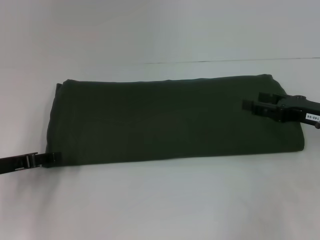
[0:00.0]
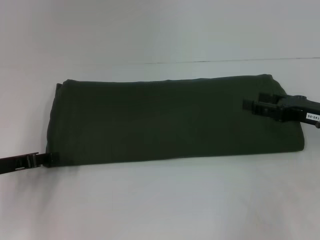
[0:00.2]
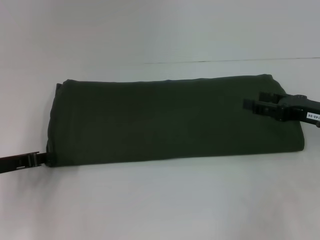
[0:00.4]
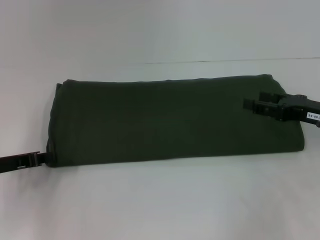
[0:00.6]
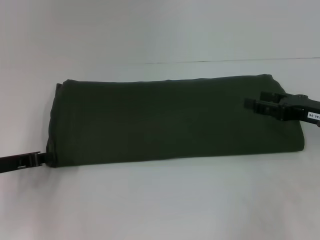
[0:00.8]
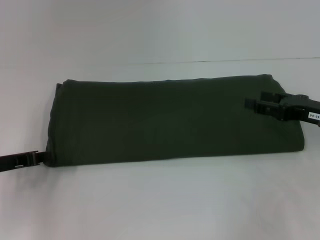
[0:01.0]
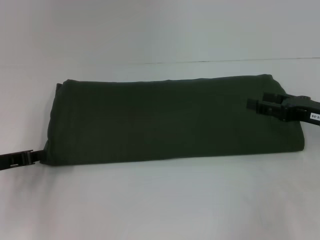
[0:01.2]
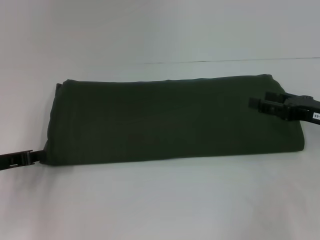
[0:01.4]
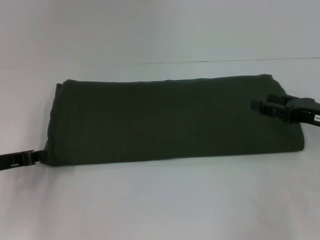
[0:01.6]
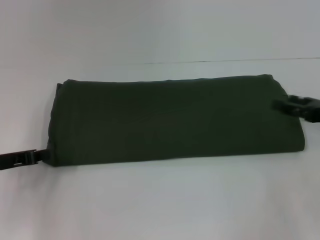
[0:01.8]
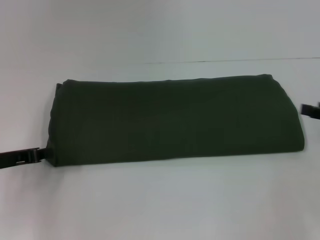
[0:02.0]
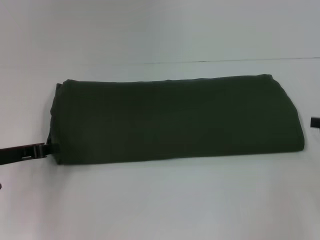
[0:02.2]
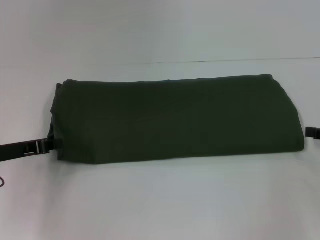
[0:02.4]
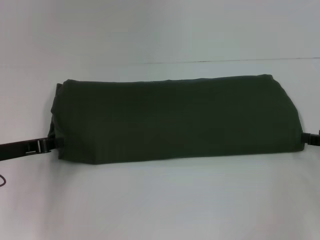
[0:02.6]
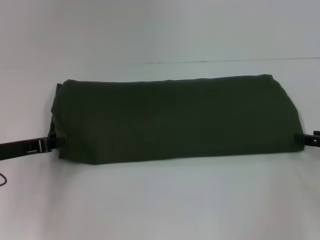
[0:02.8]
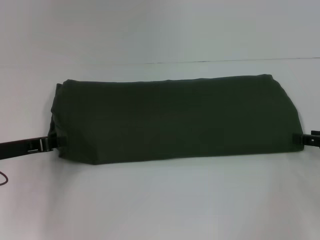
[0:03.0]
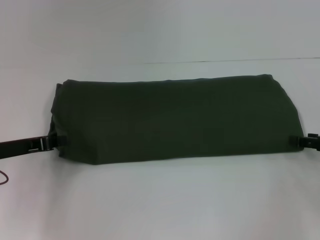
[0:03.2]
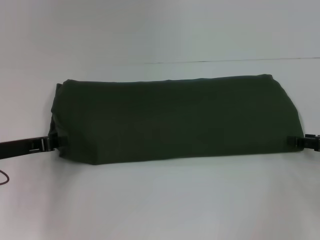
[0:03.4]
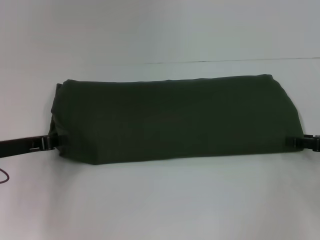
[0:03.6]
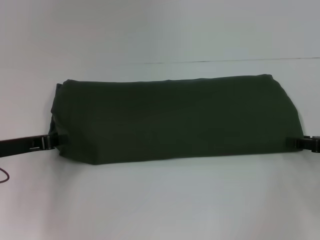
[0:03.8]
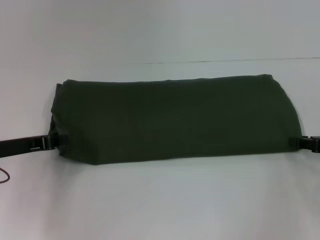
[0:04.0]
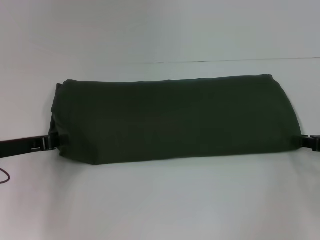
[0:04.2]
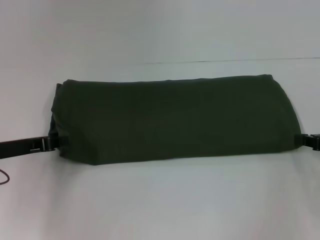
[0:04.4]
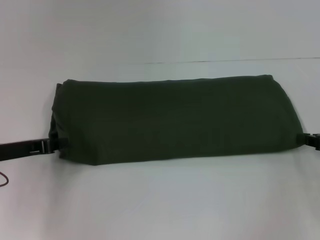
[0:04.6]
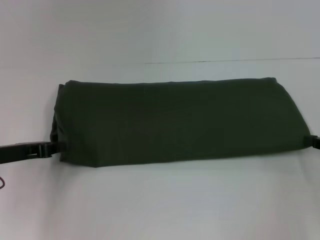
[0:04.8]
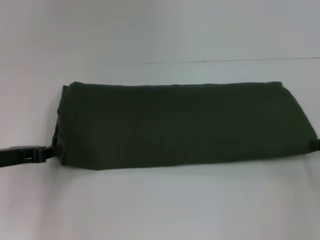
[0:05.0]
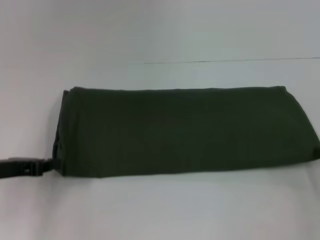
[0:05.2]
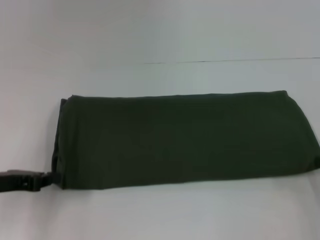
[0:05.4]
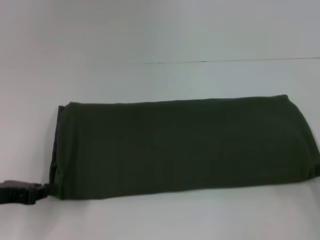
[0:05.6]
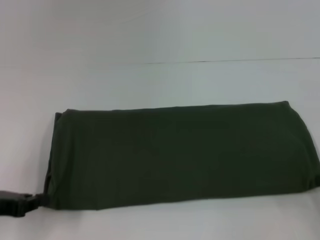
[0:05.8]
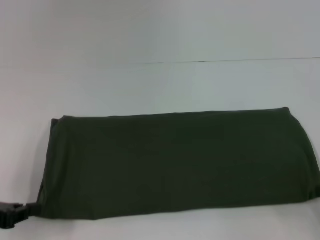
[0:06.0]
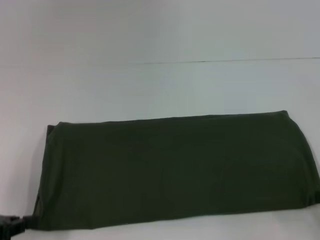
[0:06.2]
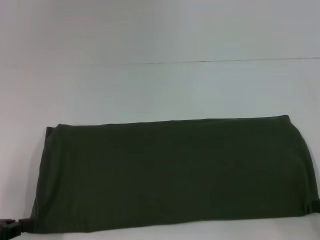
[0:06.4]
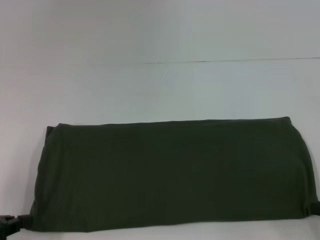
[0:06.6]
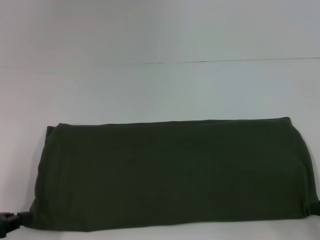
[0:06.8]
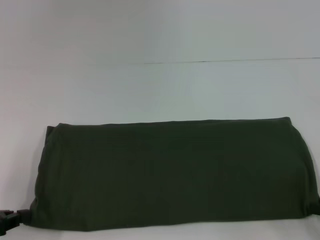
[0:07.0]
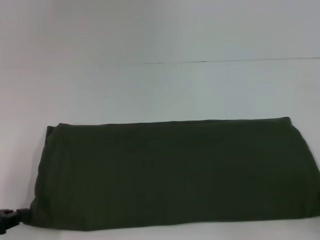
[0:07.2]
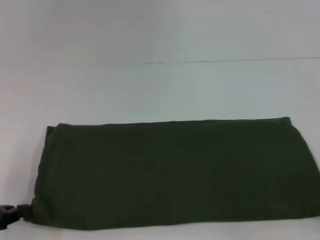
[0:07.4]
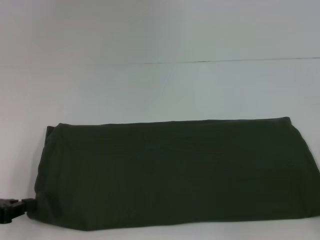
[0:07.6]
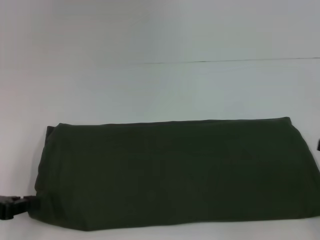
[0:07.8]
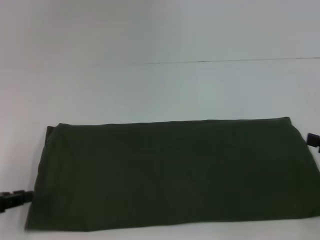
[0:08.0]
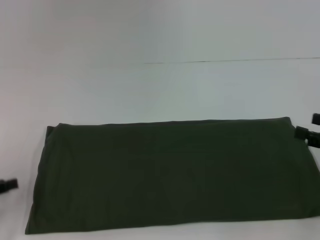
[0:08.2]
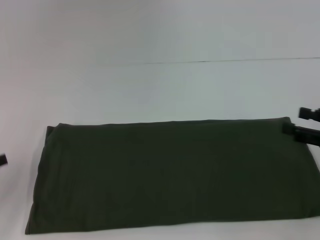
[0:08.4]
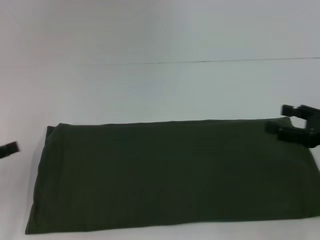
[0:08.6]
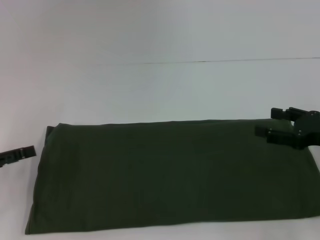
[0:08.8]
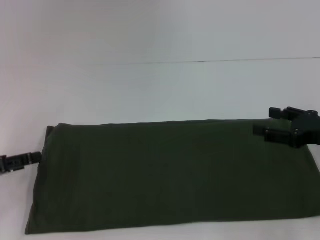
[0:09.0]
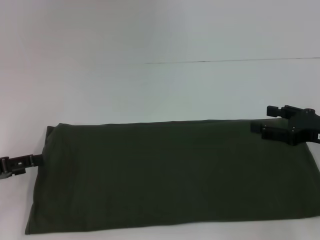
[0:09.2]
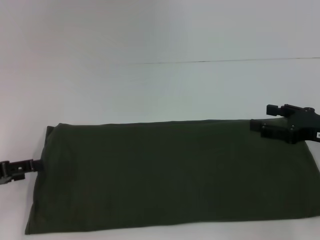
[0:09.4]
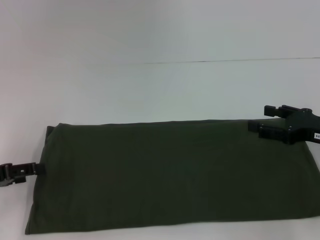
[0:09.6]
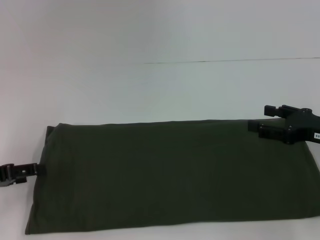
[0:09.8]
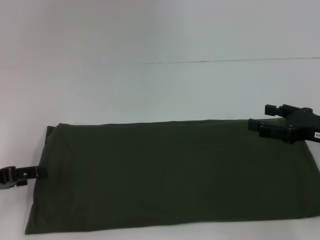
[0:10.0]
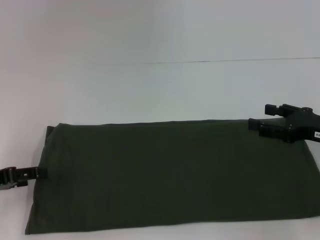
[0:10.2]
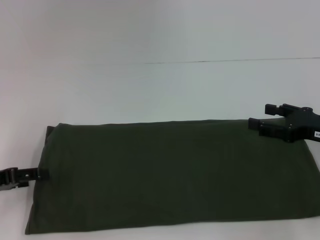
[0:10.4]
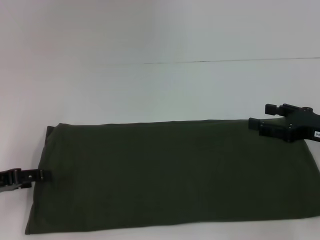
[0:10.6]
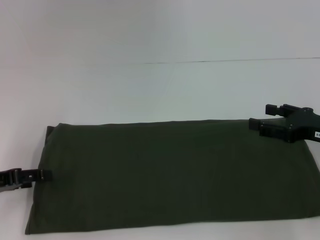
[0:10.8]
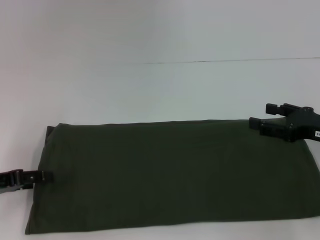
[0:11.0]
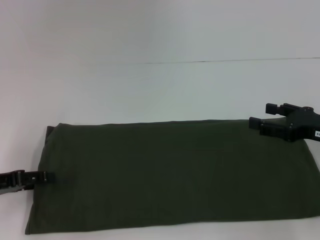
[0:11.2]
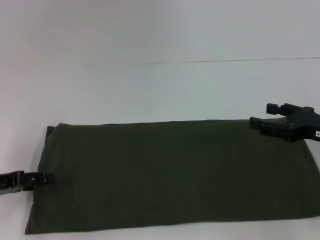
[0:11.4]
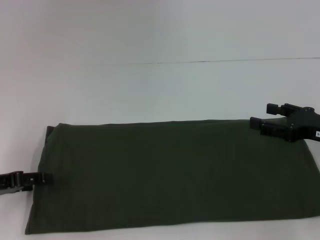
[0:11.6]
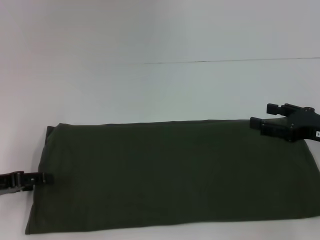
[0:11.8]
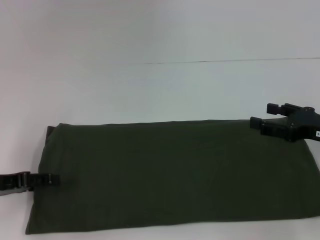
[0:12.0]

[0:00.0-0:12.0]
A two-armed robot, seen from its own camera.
Step, 0:00.0 to 0:06.8: Pull the clothes with your left hand.
Step, 0:00.0 to 0:06.8: Pull the clothes with your right hand.
0:00.0 to 0:01.6: The left gripper closes its fingers.
0:01.6 to 0:03.0: The right gripper travels to the right by roughly 5 cm.
0:04.4 to 0:06.0: The grippers both shift backward by about 10 cm.
0:06.0 to 0:07.6: The right gripper opens up.
0:07.6 to 0:09.0: The right gripper is displaced forward and to the left by approximately 10 cm. The left gripper opens.
0:09.0 to 0:12.0: There are only small adjustments of the grippers.

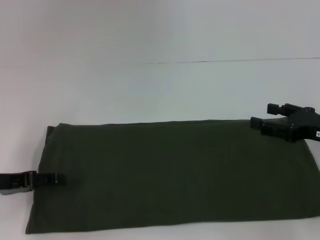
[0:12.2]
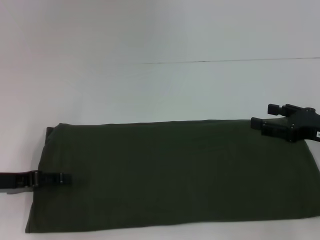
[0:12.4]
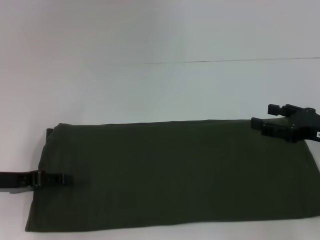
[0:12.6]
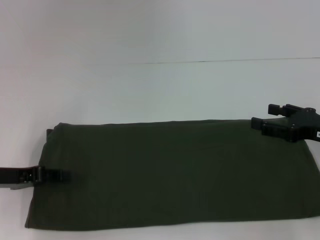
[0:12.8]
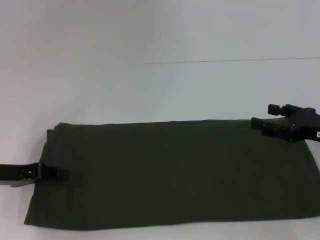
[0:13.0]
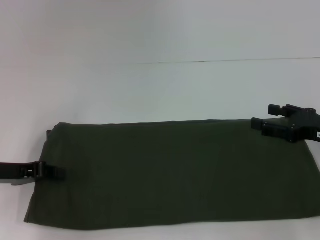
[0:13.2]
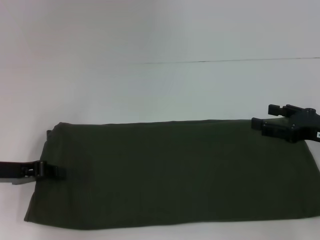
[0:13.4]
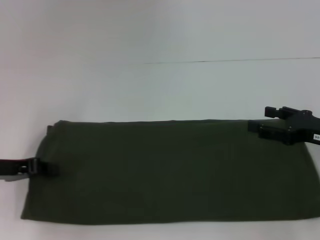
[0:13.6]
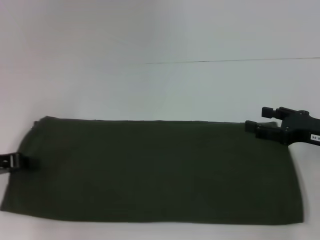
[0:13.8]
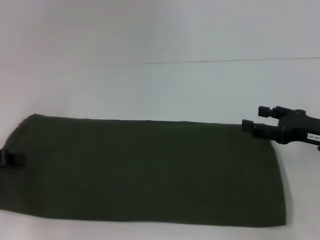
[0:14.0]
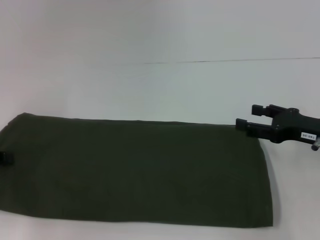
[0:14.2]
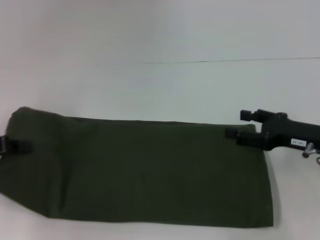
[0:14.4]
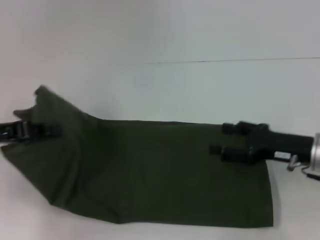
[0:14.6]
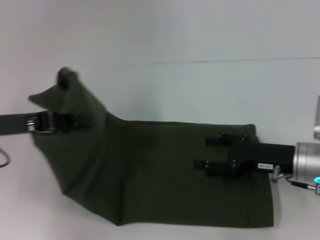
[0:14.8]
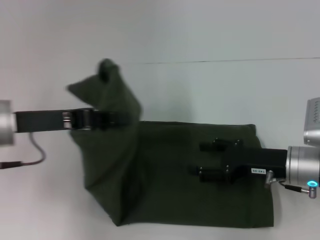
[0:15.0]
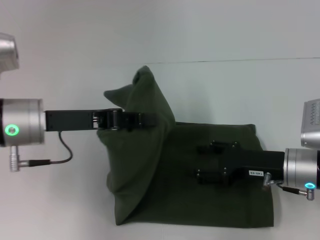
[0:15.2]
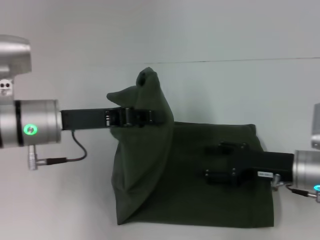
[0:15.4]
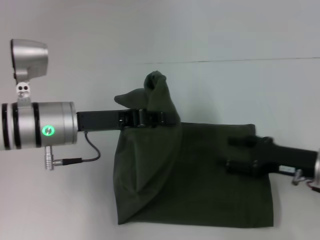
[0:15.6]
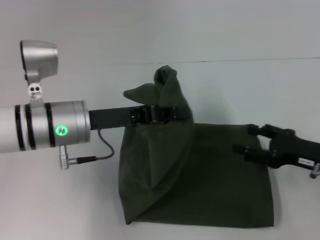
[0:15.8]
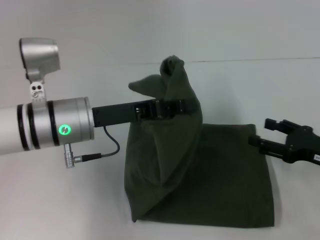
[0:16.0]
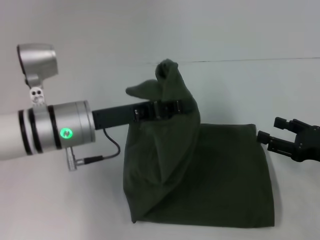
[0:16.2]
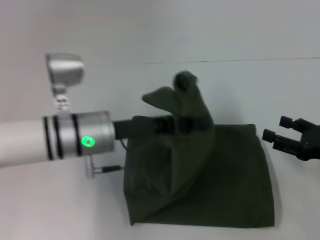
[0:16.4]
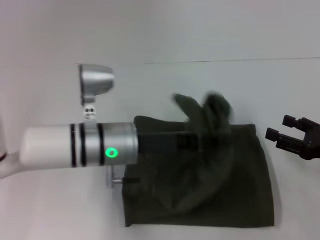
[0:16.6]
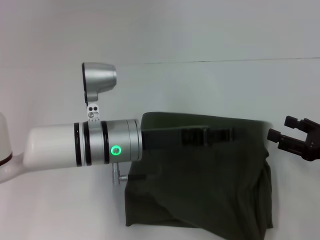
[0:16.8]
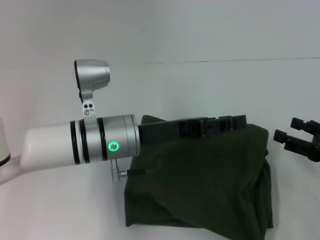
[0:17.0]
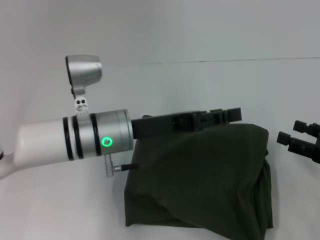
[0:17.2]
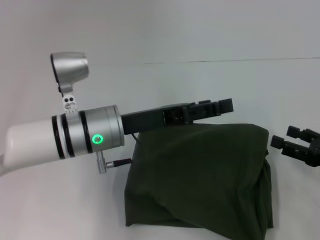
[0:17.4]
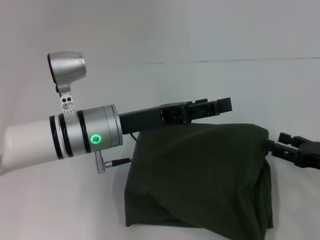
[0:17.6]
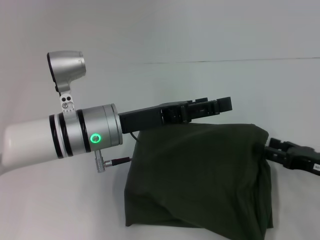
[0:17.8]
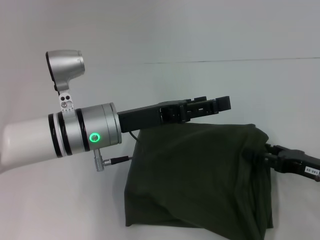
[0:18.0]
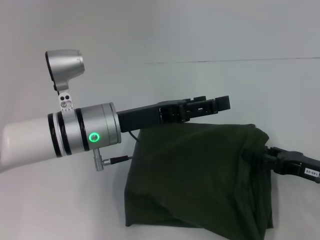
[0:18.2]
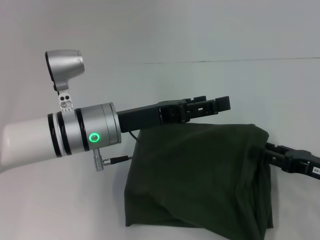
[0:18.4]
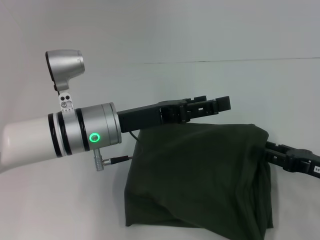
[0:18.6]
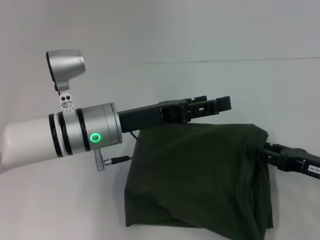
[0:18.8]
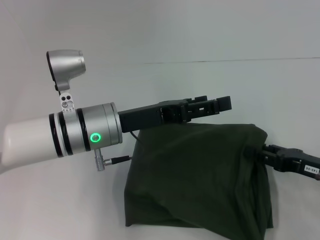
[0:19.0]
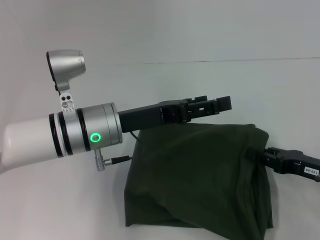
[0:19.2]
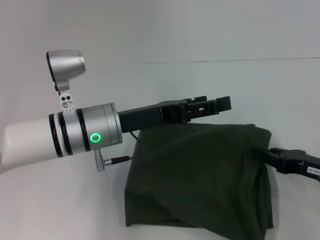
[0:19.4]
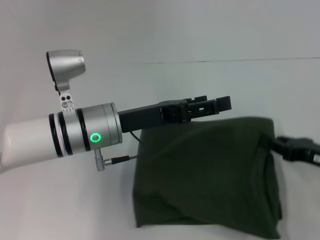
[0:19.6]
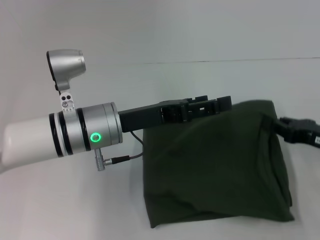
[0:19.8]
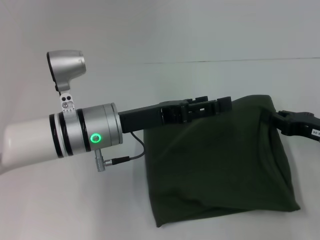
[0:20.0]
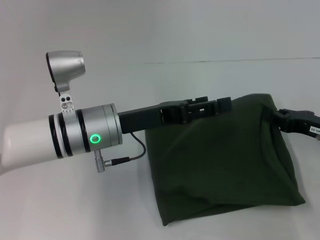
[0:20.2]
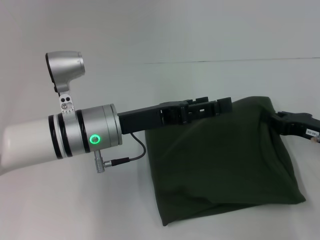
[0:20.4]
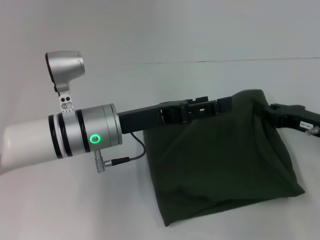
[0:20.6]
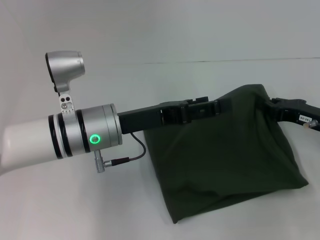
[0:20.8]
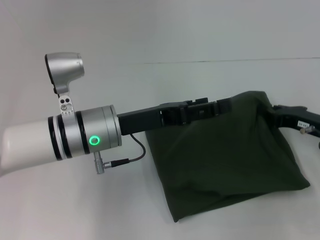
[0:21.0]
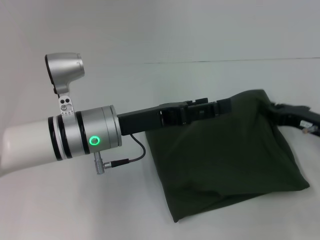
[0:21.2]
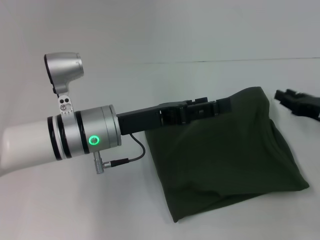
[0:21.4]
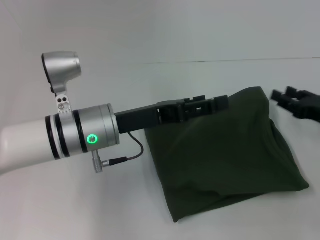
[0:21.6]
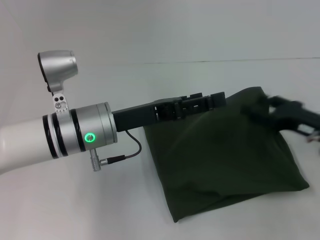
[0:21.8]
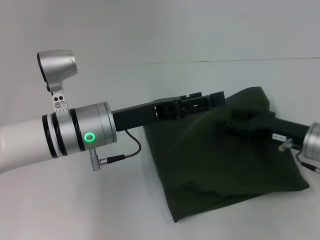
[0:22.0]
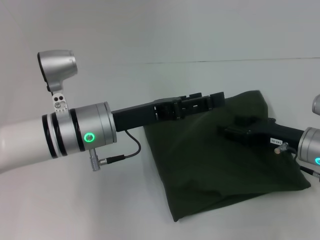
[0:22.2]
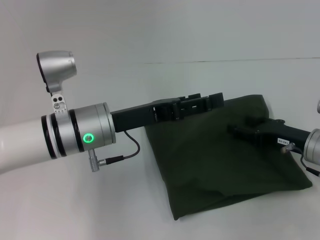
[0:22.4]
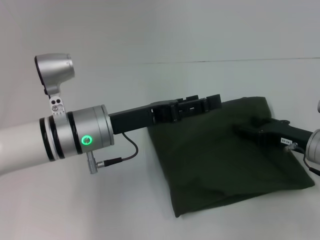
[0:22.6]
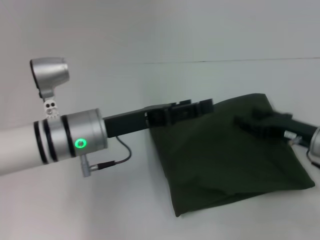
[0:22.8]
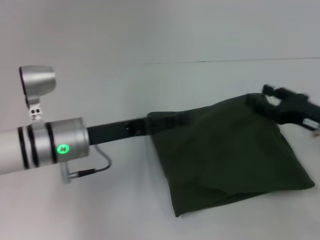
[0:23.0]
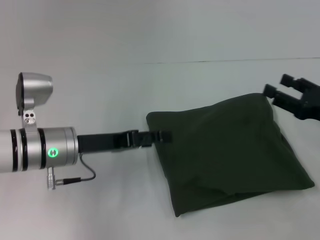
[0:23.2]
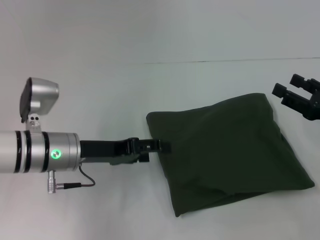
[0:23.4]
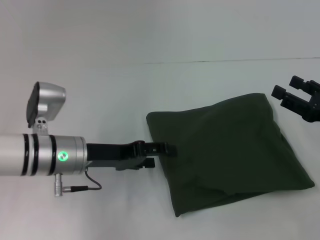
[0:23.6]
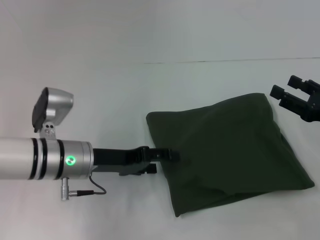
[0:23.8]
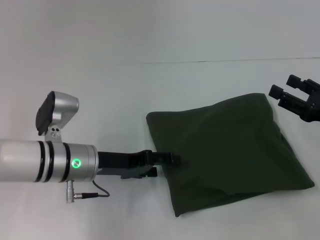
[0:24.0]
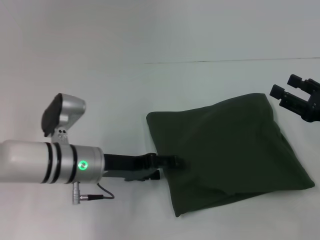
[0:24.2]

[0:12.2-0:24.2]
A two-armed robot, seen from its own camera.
Step, 0:12.2 to 0:17.2: Fold the clothes with your left hand.
0:12.2 to 0:13.8: The left gripper closes.
0:13.8 to 0:15.2: The right gripper goes some 10 cm to the left. The left gripper goes about 15 cm to the right and upward.
0:15.2 to 0:16.6: The left gripper shifts about 10 cm to the right and downward, while the right gripper is displaced to the right by roughly 10 cm.
0:16.6 to 0:18.2: The left gripper opens up.
0:18.2 to 0:19.8: The right gripper closes its fingers.
0:19.8 to 0:21.2: The grippers move only a little.
0:21.2 to 0:22.6: The right gripper opens.
0:22.6 to 0:24.2: The left gripper travels downward by about 5 cm; the right gripper is displaced upward by approximately 5 cm.
